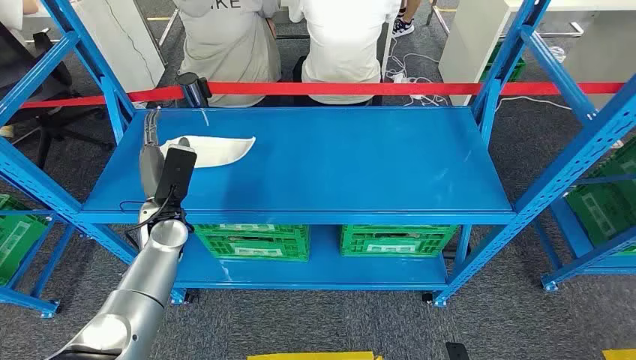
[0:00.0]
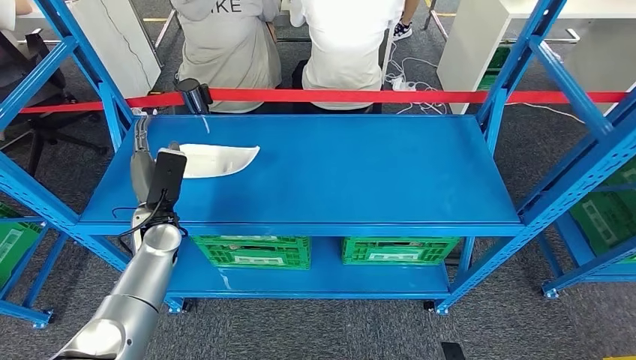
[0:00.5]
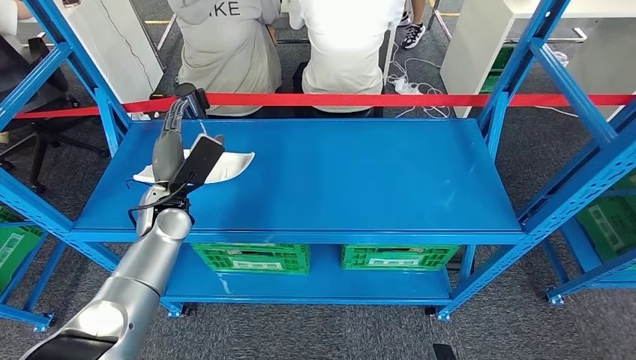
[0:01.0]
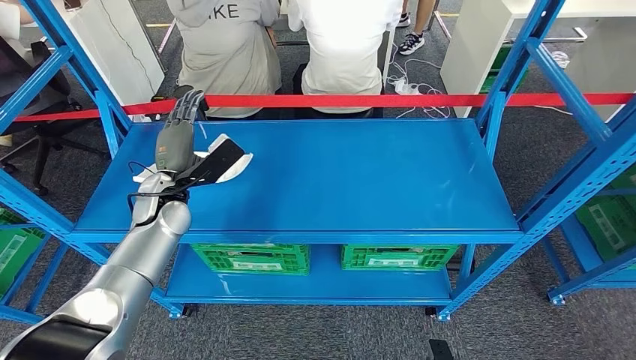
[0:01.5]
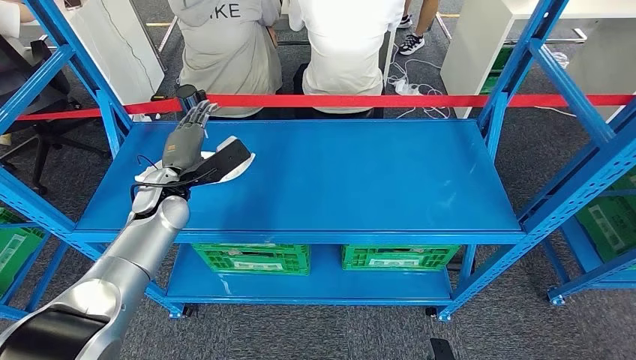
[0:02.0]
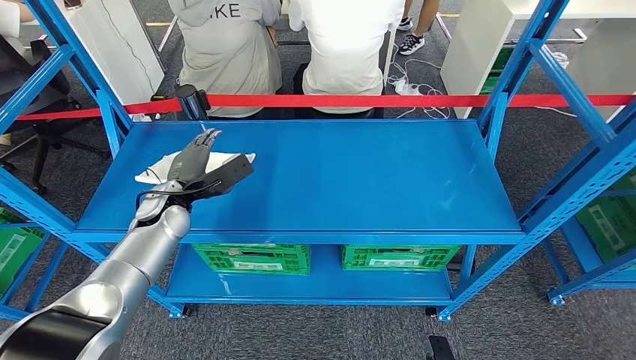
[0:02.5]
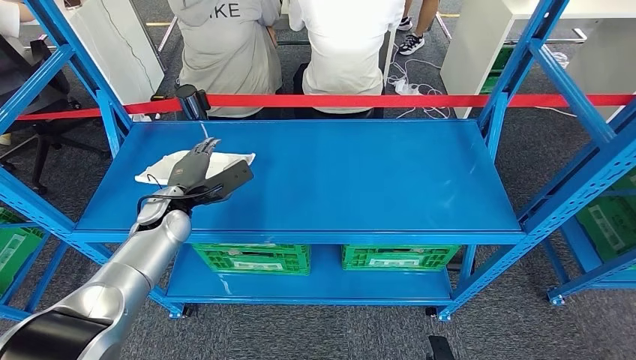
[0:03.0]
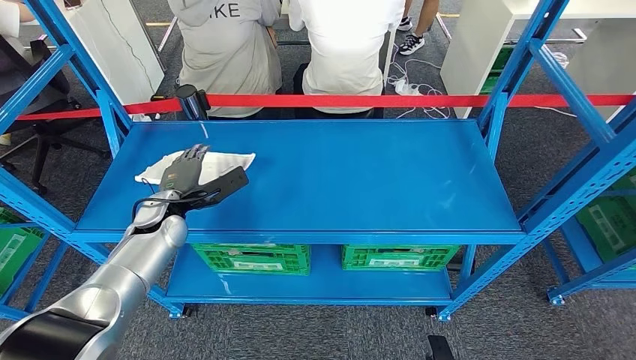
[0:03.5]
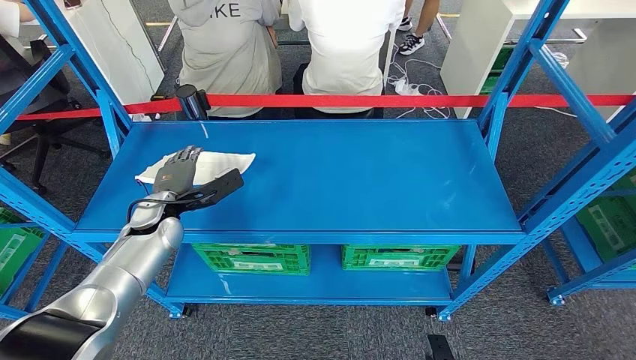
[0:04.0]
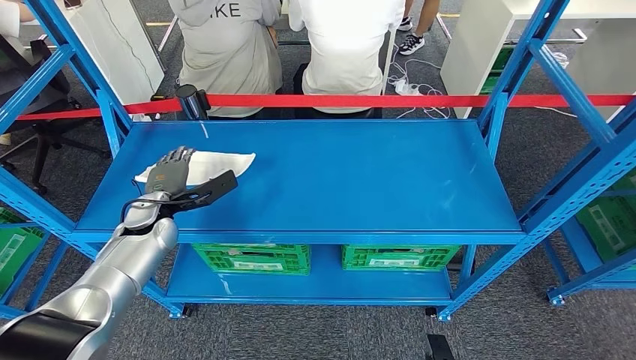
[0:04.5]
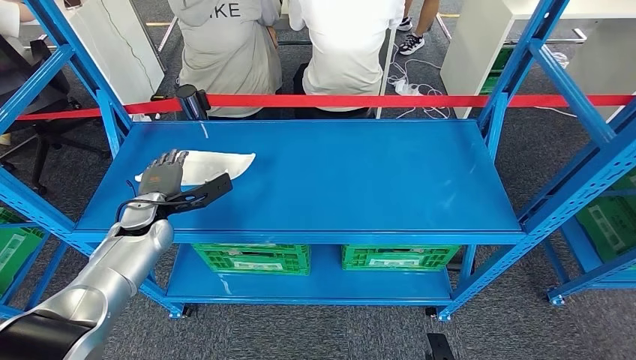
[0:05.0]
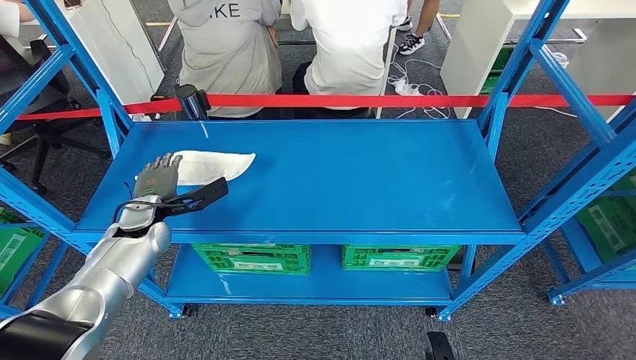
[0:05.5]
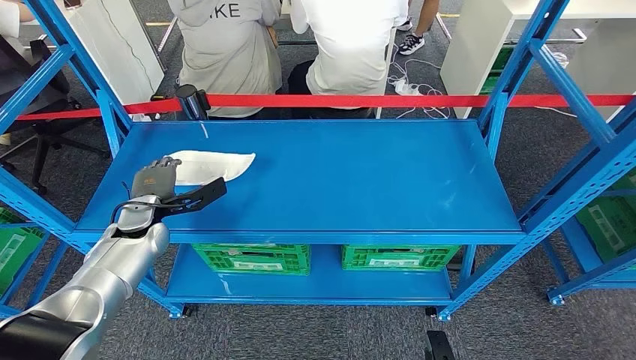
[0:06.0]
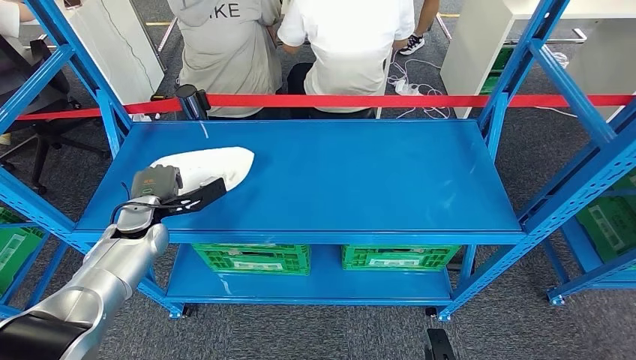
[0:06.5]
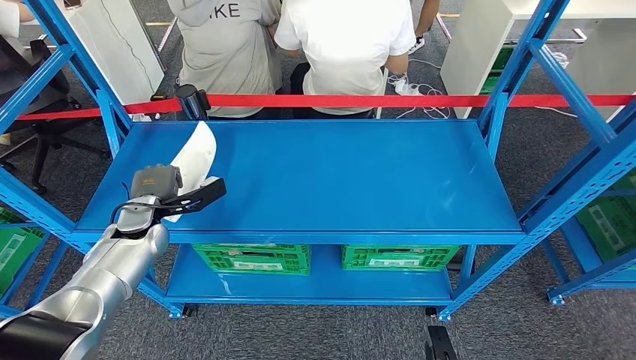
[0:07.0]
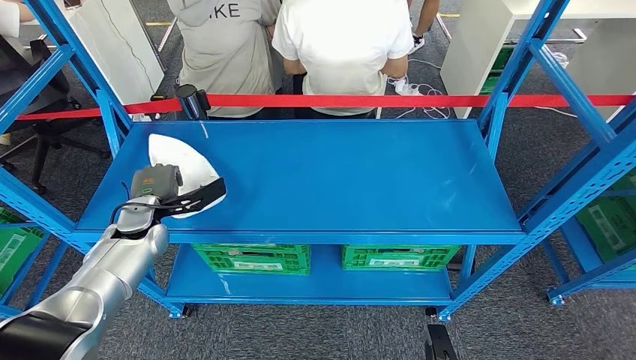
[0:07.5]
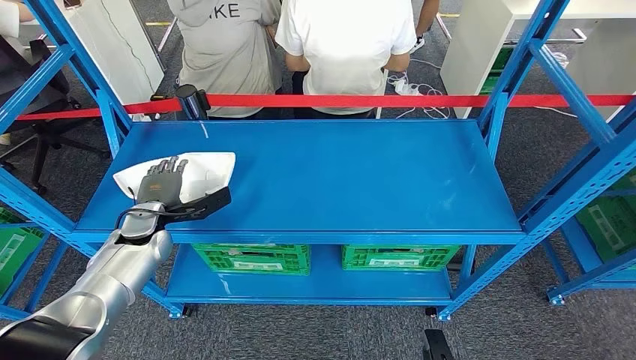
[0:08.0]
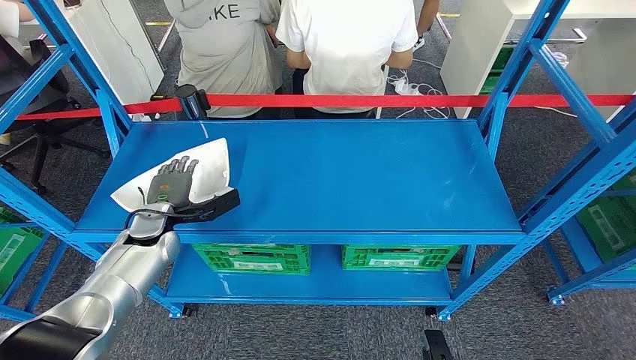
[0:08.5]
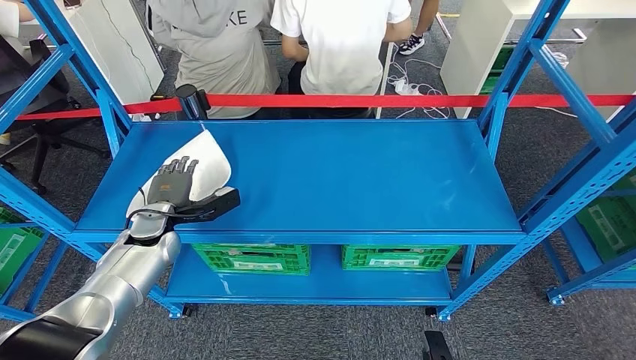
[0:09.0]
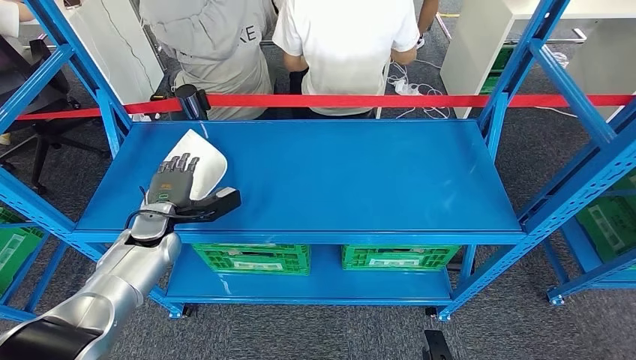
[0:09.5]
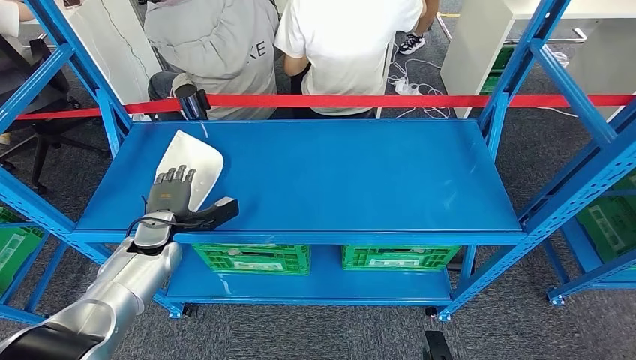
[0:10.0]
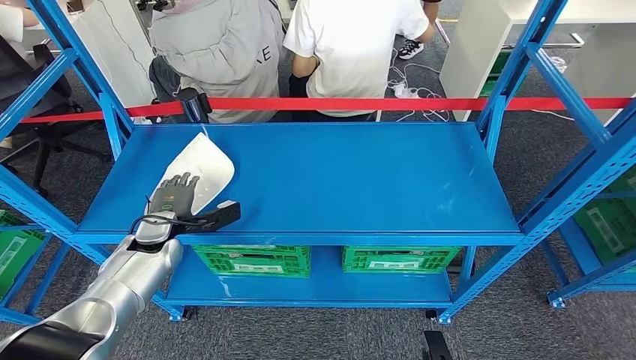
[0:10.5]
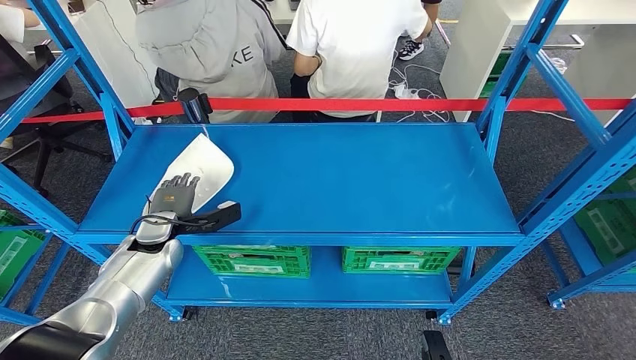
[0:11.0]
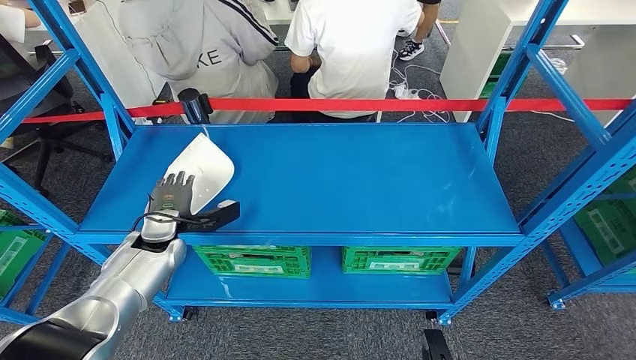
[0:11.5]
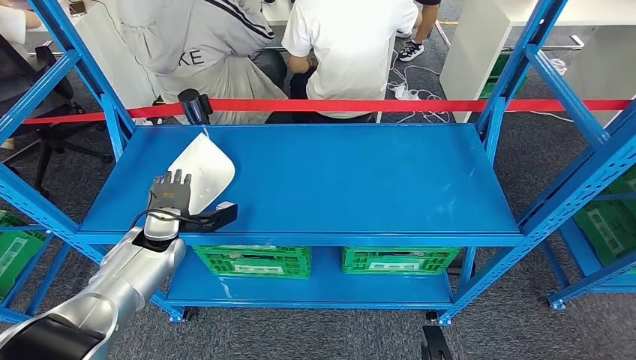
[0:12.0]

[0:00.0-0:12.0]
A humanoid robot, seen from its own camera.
0:02.0 to 0:04.0: The left hand moves roughly 5 cm.
0:04.0 to 0:06.0: The hands stay close to where they were, moving slightly.
0:06.0 to 0:08.0: Both hands stay put.
0:08.0 to 0:10.0: The hands stay close to where they were, moving slightly.

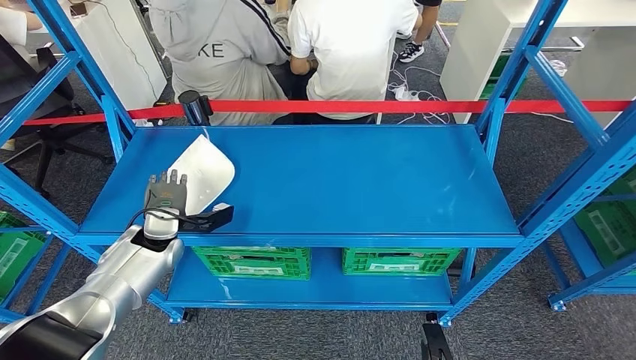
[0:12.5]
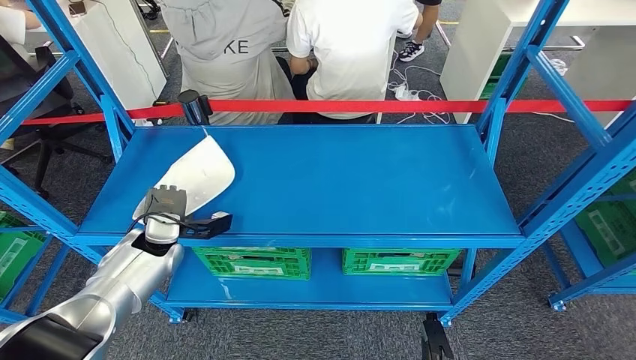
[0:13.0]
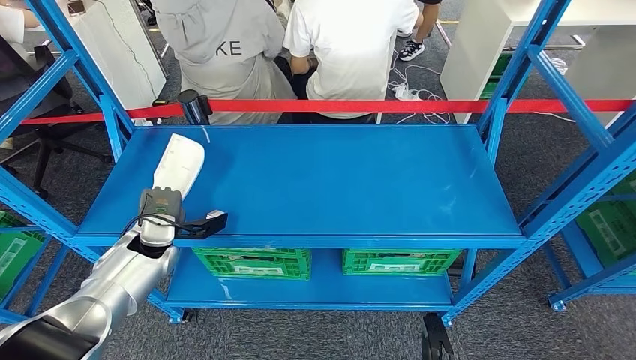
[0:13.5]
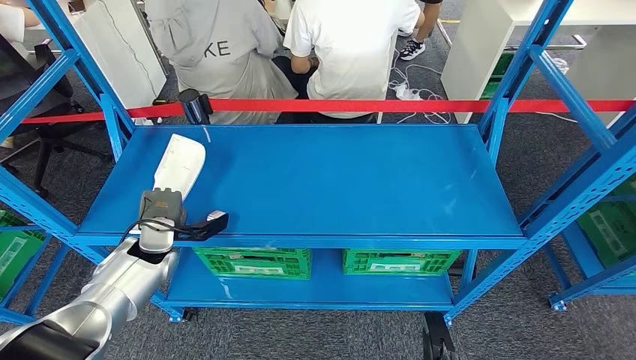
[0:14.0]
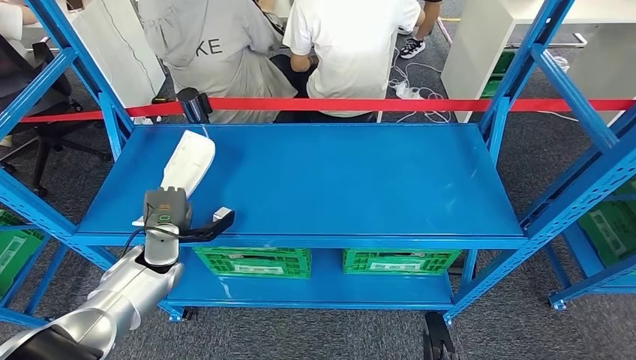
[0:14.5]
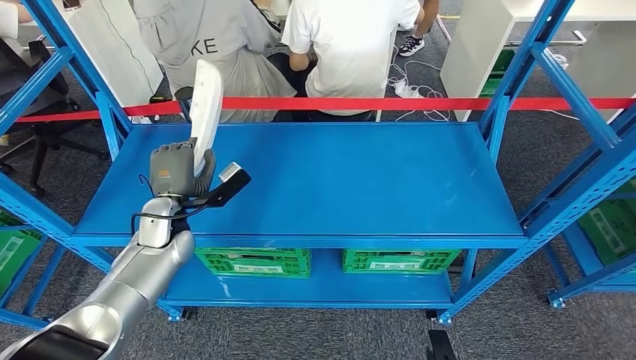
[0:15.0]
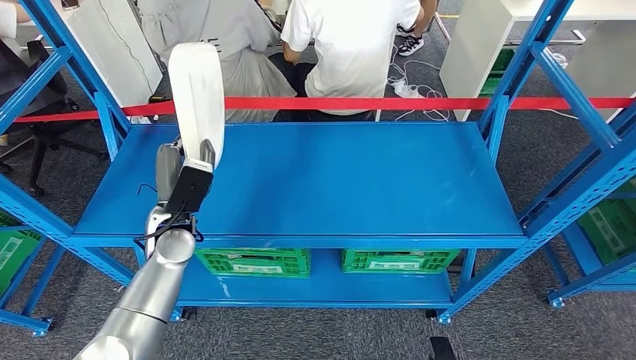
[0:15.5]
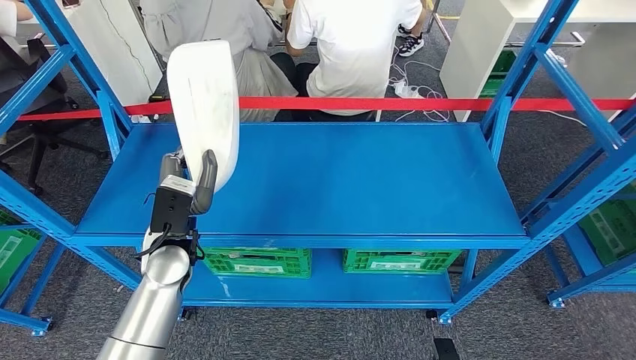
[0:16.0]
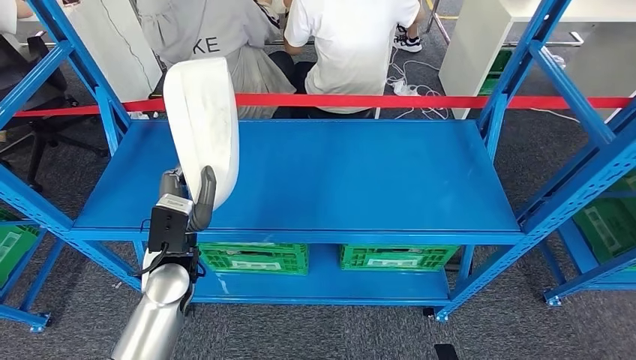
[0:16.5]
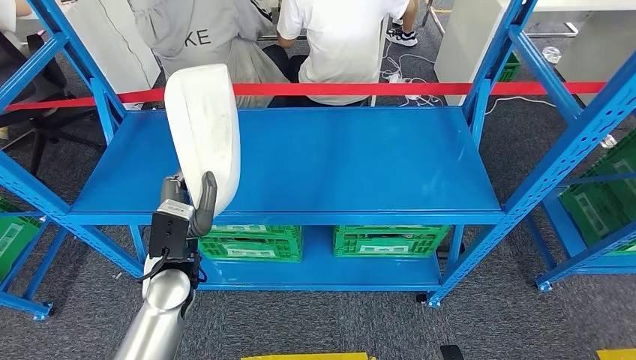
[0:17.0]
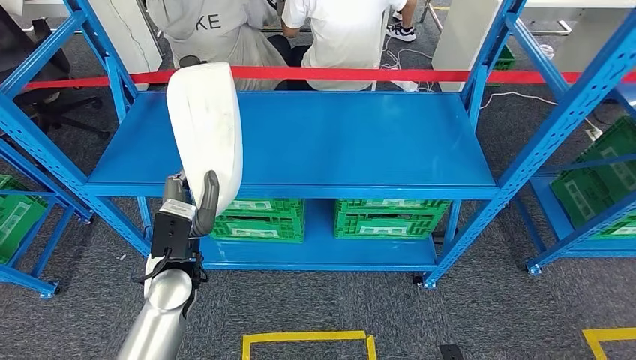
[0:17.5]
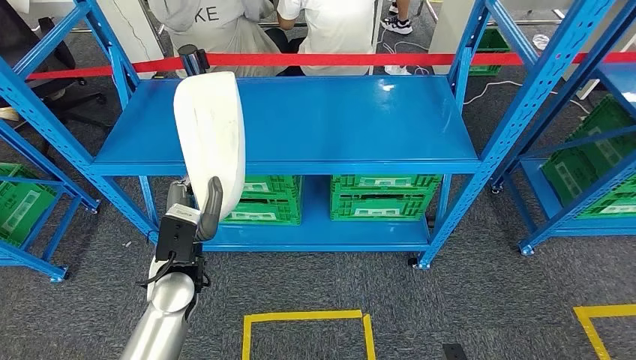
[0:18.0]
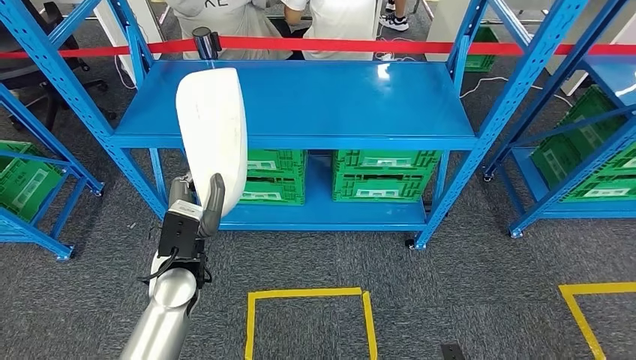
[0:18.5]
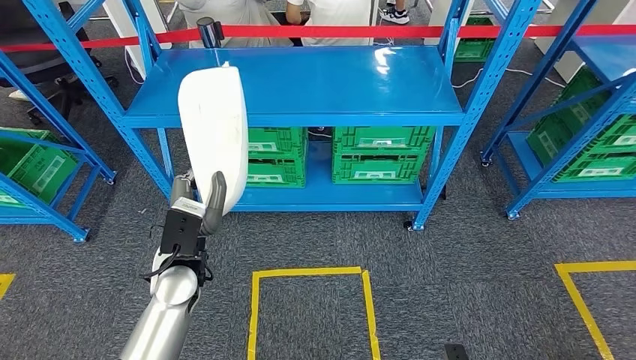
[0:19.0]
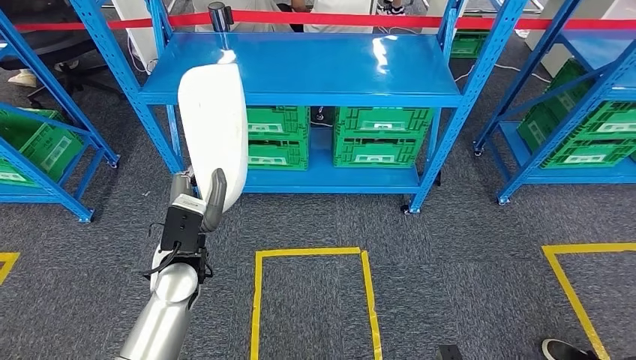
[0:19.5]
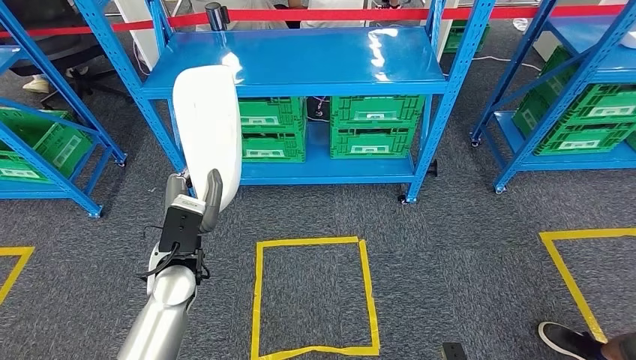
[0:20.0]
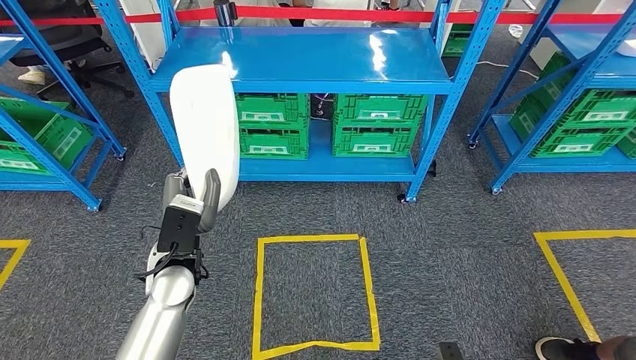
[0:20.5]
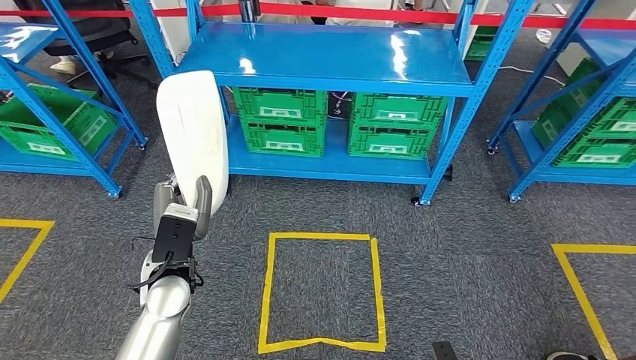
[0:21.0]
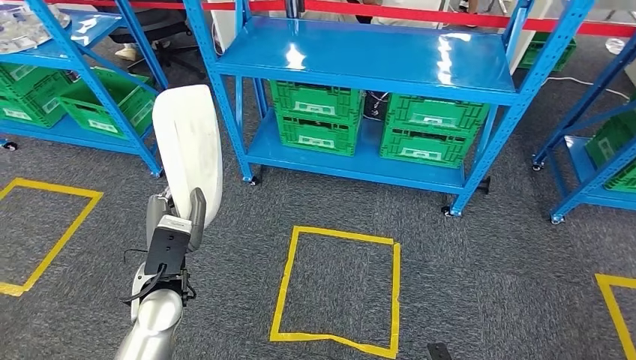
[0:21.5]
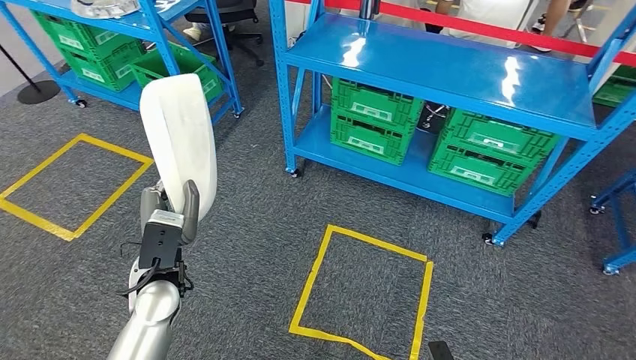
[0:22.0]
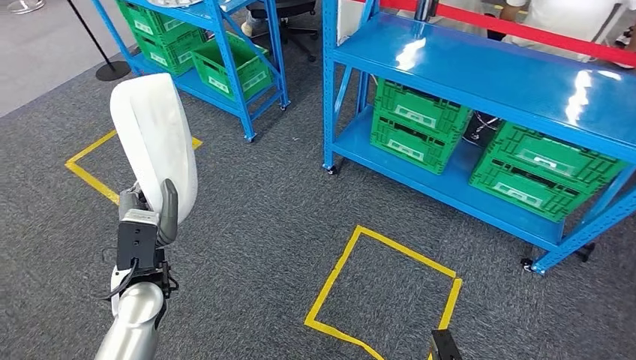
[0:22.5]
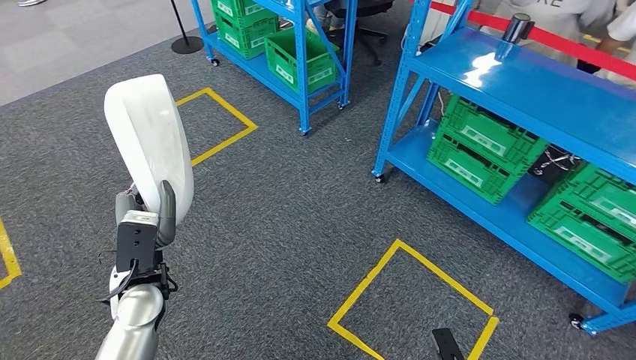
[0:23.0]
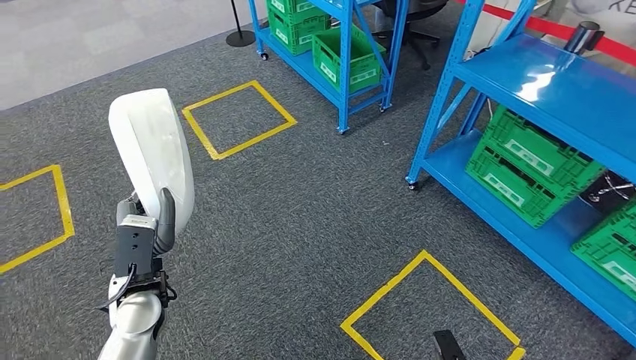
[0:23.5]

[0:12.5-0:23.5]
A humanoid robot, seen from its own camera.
Step, 0:12.5 to 0:16.0: Pick up the large material from the shelf.
0:12.5 to 0:14.5: There are only small adjustments of the hands.
0:14.5 to 0:16.0: The left hand heads to the right and upward, covering roughly 10 cm.
